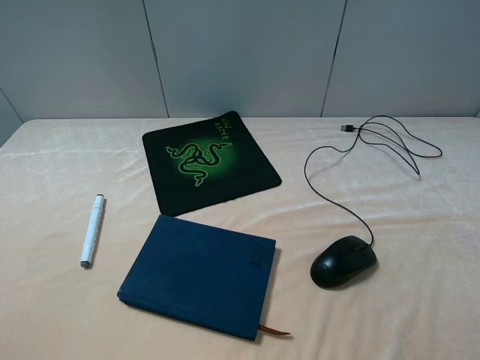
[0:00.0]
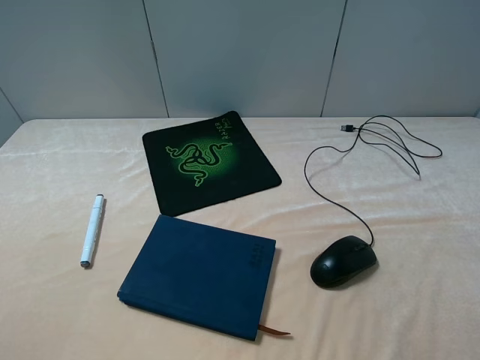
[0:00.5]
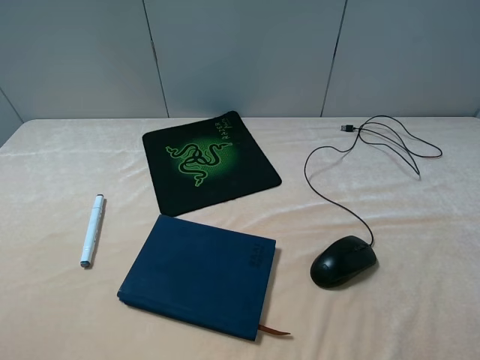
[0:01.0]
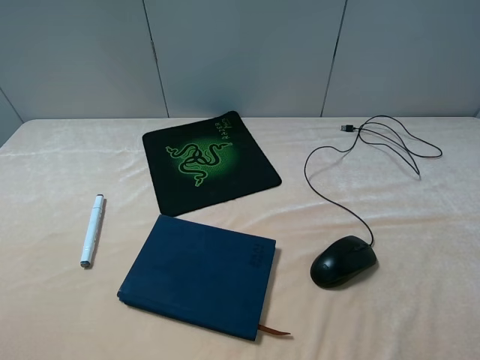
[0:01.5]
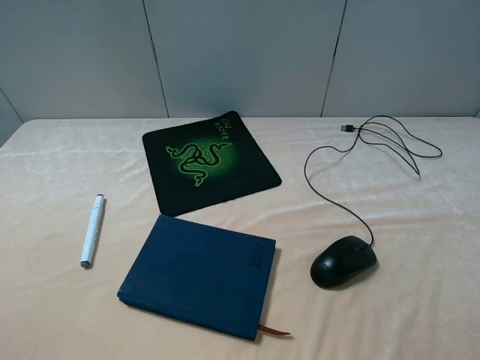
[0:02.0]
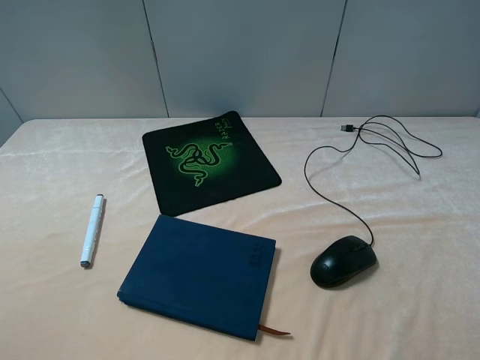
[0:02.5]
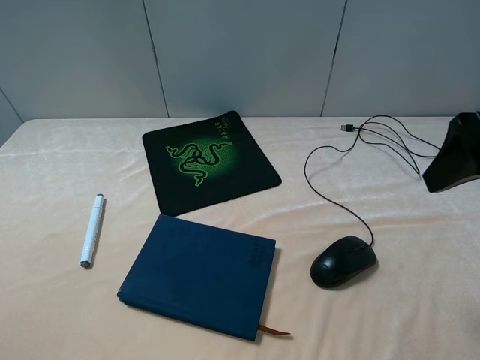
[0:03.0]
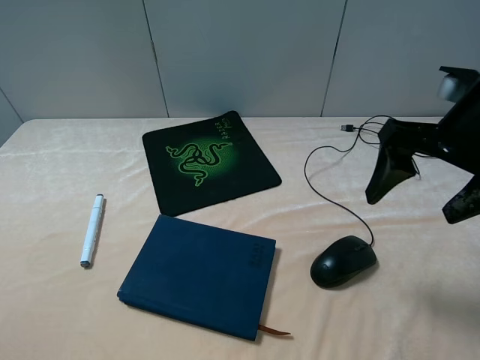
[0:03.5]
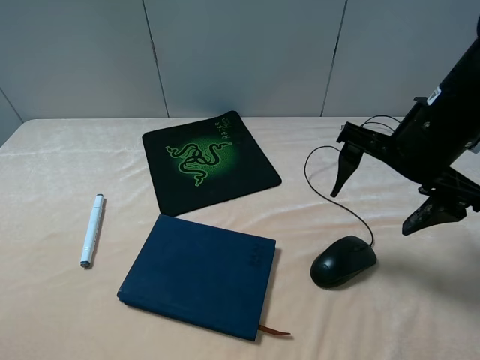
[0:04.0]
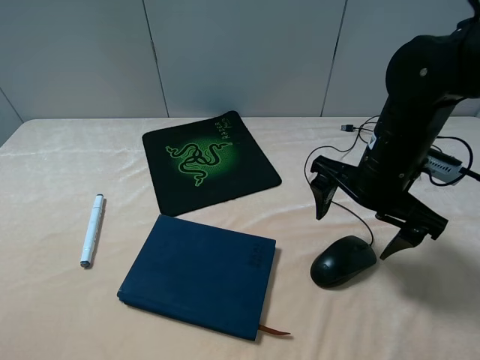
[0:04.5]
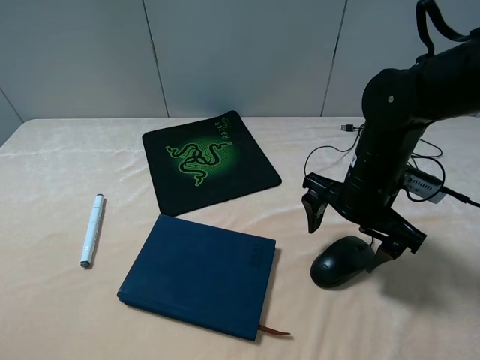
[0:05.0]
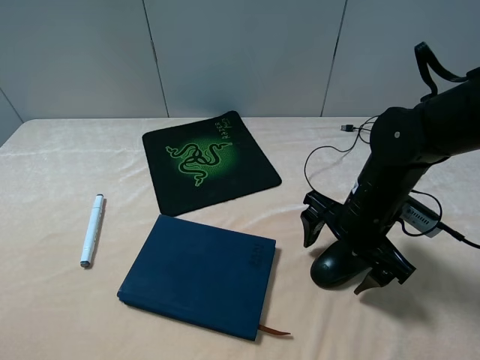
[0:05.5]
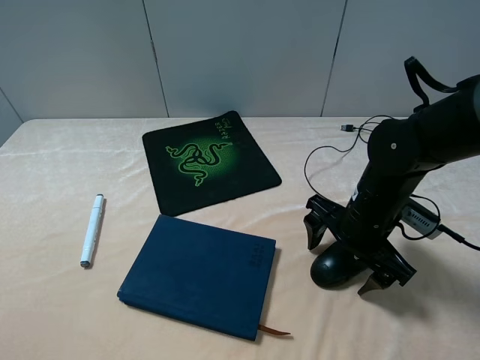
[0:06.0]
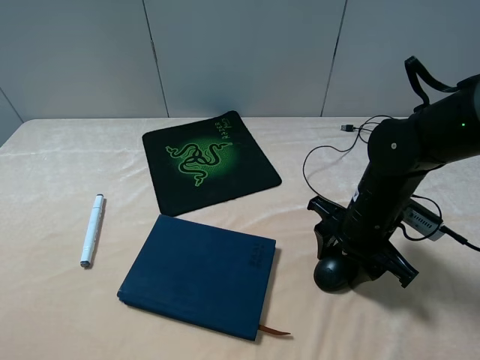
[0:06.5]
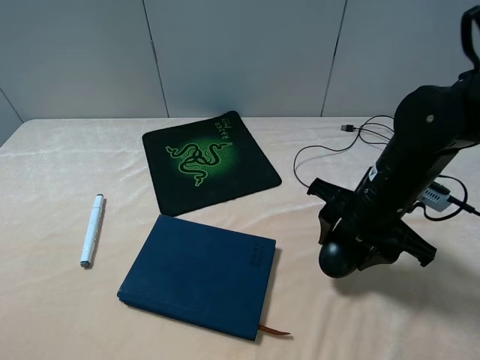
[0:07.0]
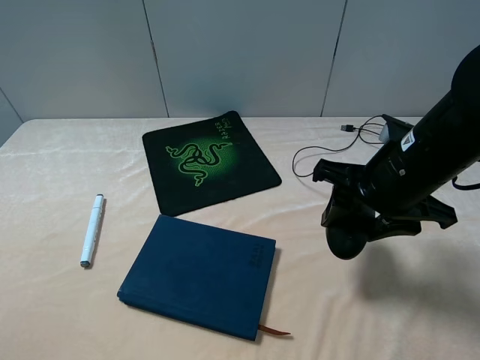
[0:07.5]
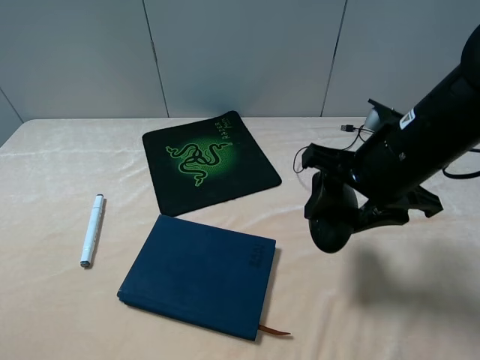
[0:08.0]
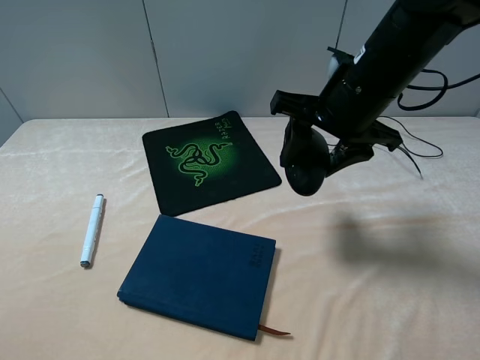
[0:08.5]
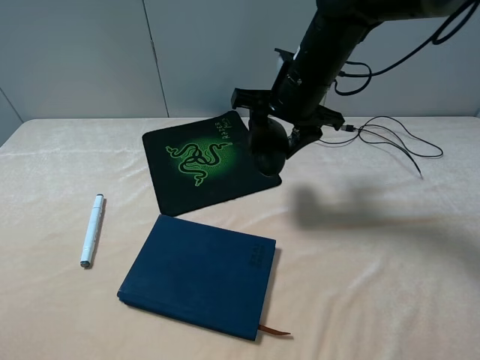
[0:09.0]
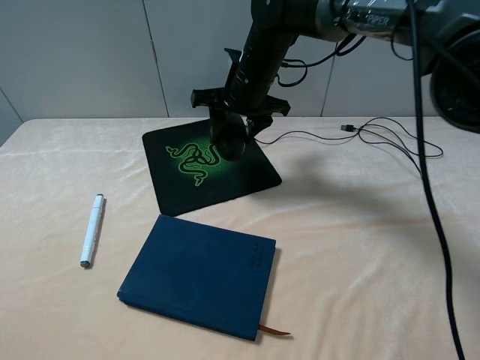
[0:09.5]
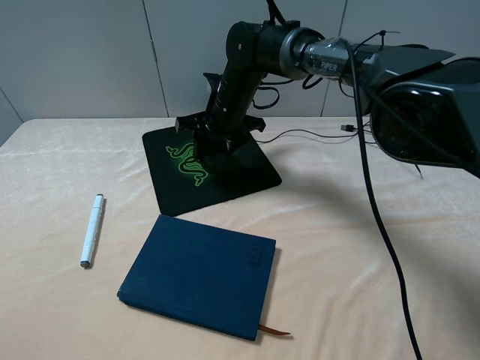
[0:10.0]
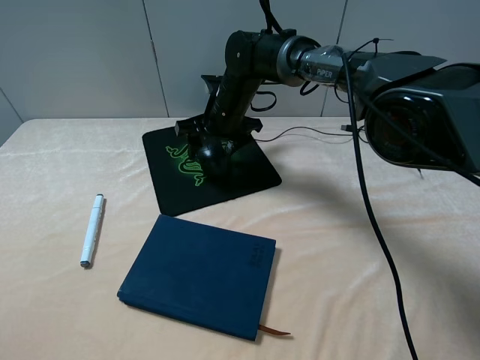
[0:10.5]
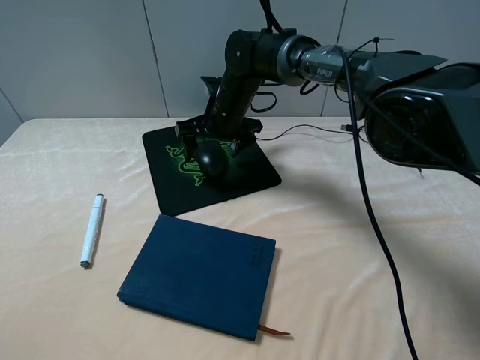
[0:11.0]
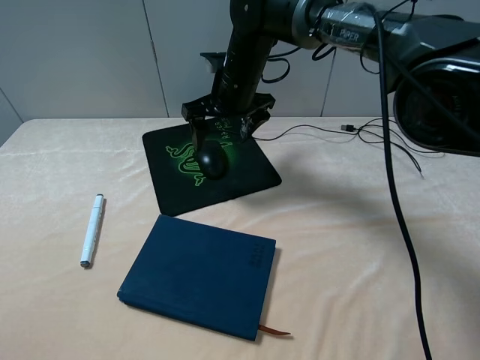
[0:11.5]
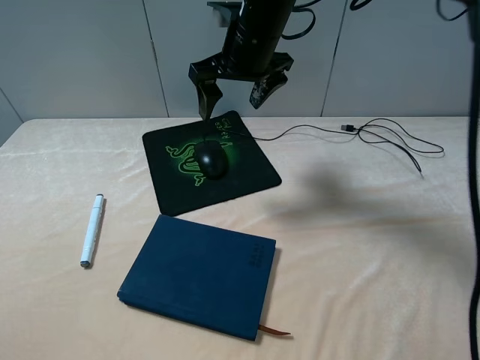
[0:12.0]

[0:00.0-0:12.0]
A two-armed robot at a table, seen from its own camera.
Step, 0.0 to 6.5 s: Grasp the mouse with the right gripper.
Step, 7.0 to 10.5 s: Place the mouse on the mouse pad with the right gripper.
2.0 to 4.0 s: The right gripper heads forward, to the left and downward, covering about 25 cm.
4.0 to 6.0 s: The right gripper travels downward by some 10 cm.
6.0 to 8.0 s: The right gripper shifts approximately 10 cm upward, and closes its fingers.
8.0 to 10.0 s: The right gripper heads forward and to the left, covering roughly 30 cm.
10.0 to 12.0 s: The right gripper shifts about 15 cm upward, and opens its fingers.

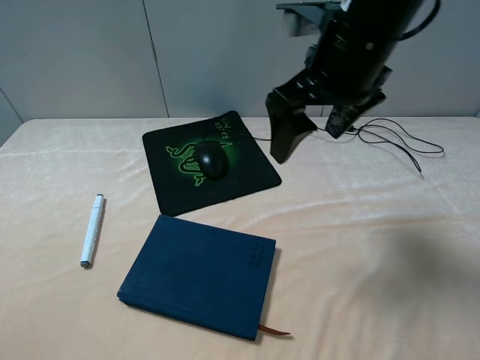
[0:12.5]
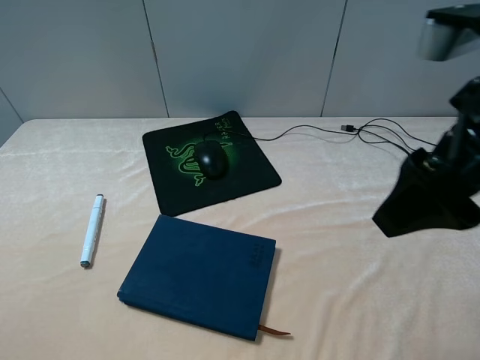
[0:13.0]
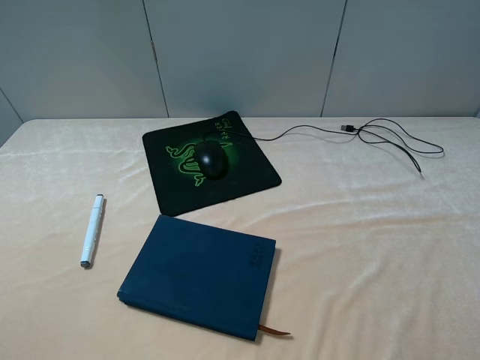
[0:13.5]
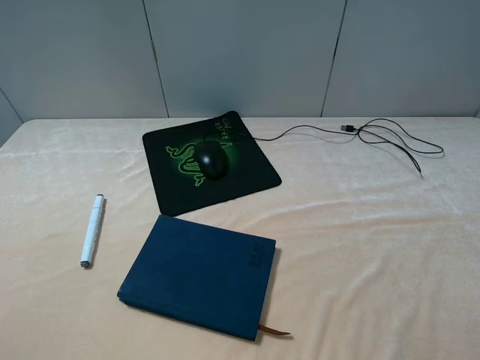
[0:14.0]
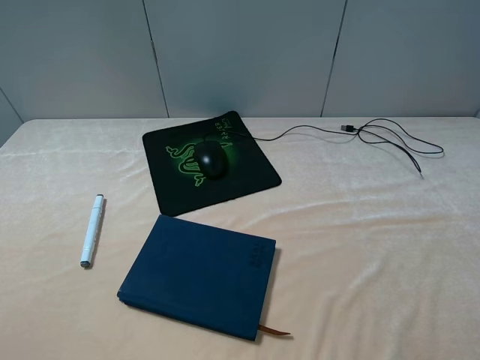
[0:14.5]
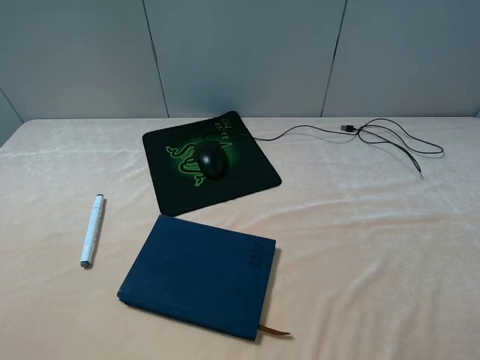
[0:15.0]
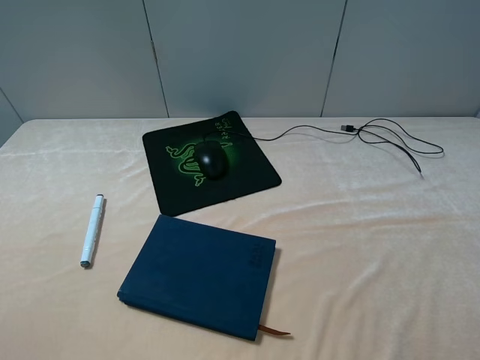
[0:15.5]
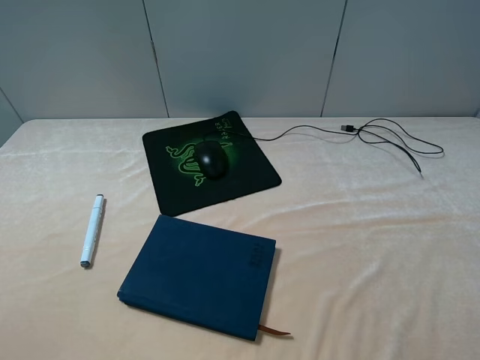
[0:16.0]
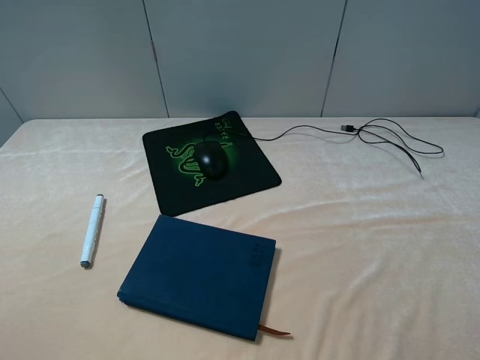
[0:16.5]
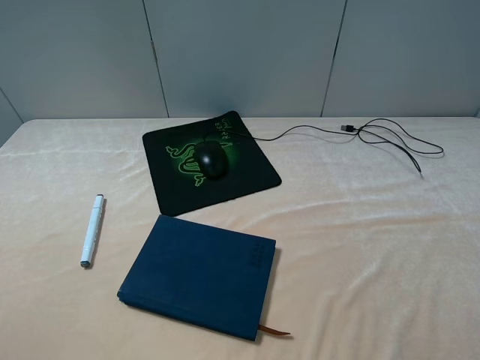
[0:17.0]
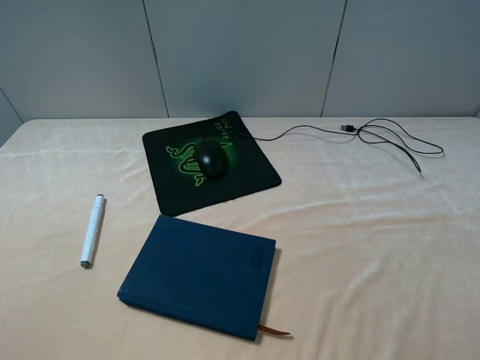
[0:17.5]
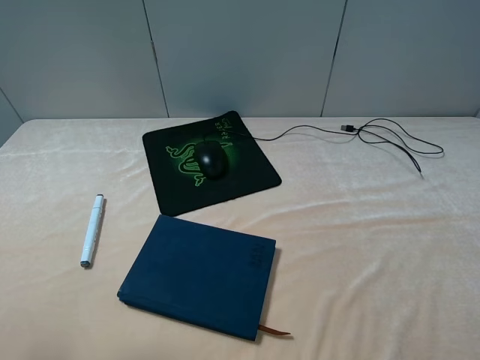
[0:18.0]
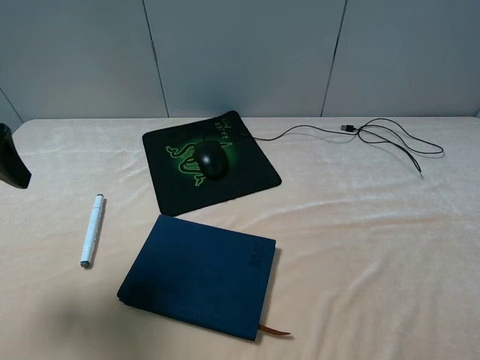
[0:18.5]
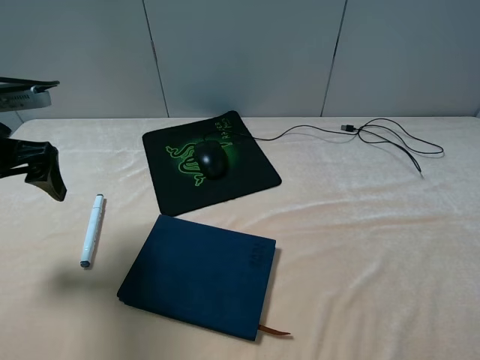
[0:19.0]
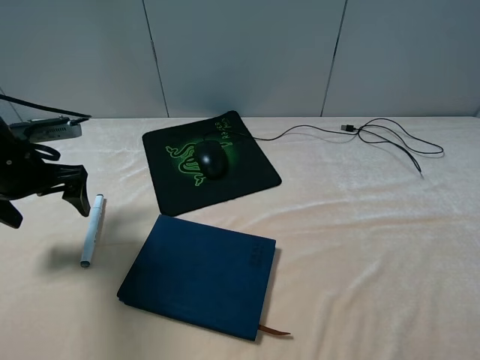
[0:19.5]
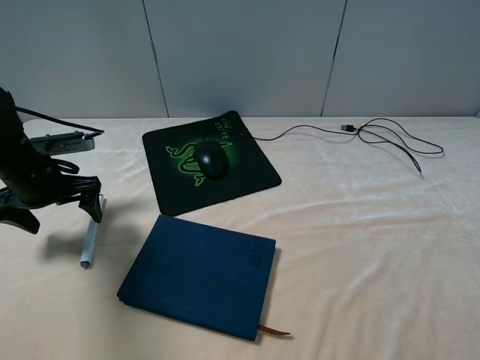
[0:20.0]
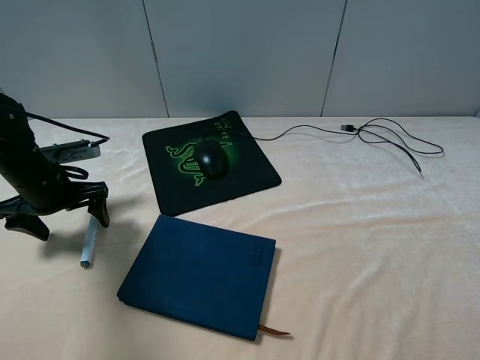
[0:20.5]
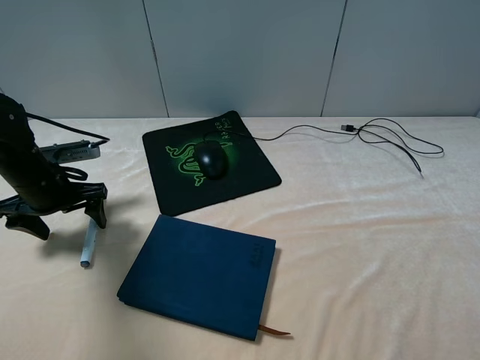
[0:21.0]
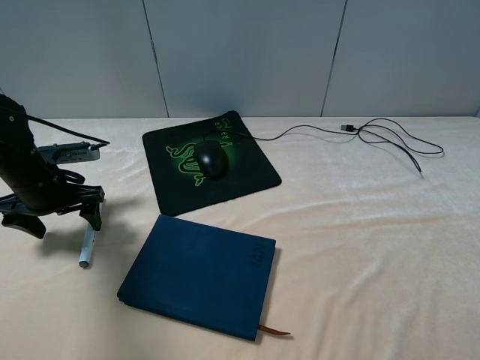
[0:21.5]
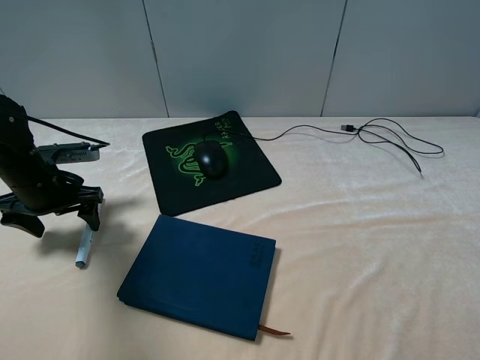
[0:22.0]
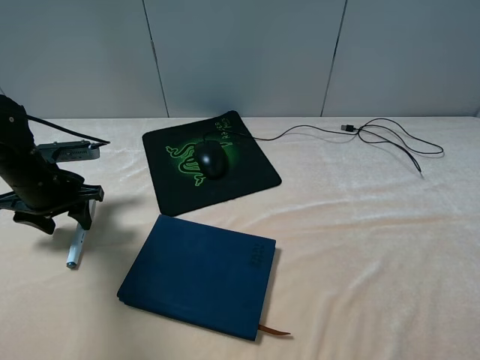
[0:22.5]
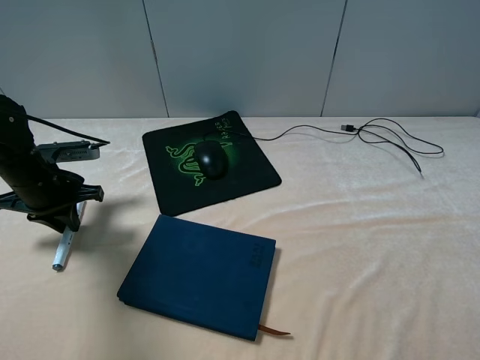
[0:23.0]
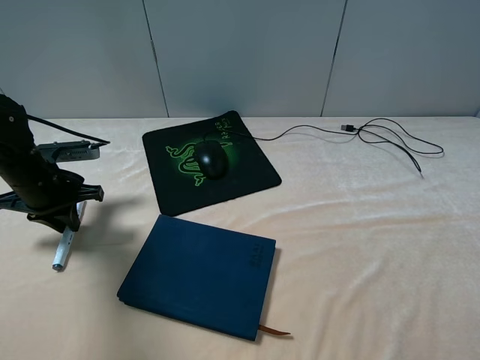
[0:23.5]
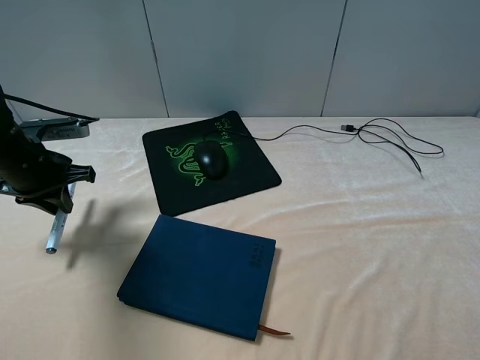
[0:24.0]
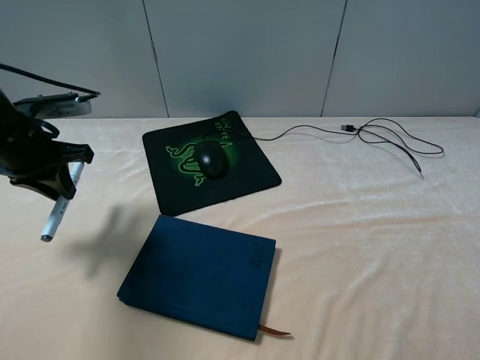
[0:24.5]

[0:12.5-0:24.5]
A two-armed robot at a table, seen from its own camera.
Step, 12.5 to 23.0 s: Grasp the marker with the left gripper.
12.5 to 14.5 s: The right gripper goes approximately 30 cm backward and to the right.
16.5 to 18.5 s: The left gripper shifts about 20 cm forward.
18.5 to 20.5 s: The left gripper moves downward and forward, some 20 cm.
20.5 to 22.5 s: The left gripper closes its fingers.
22.5 to 24.5 s: The left gripper travels upward by roughly 10 cm, and closes up.

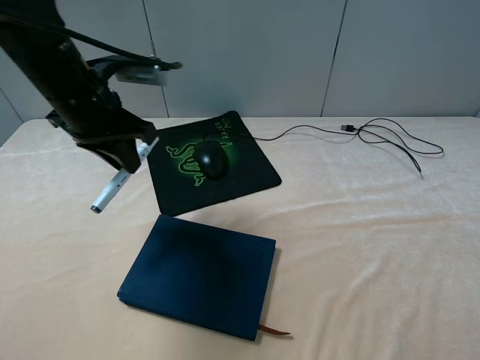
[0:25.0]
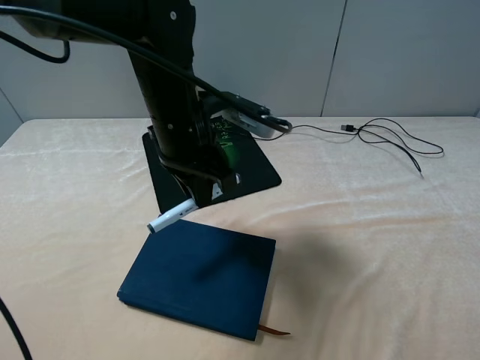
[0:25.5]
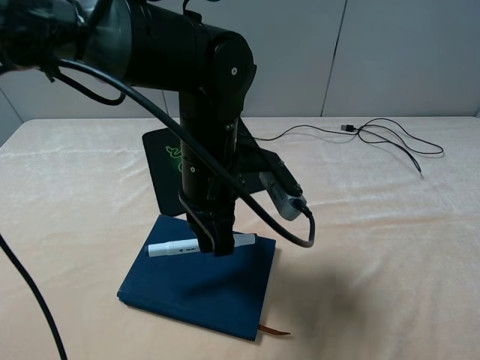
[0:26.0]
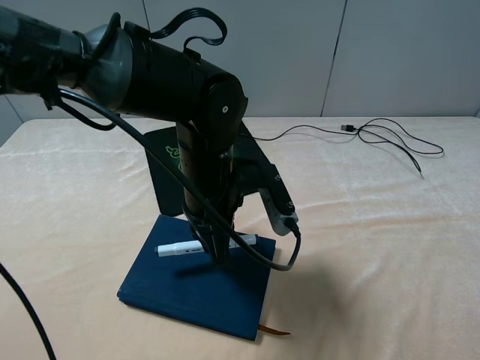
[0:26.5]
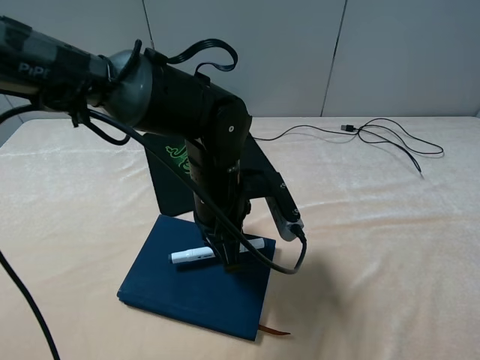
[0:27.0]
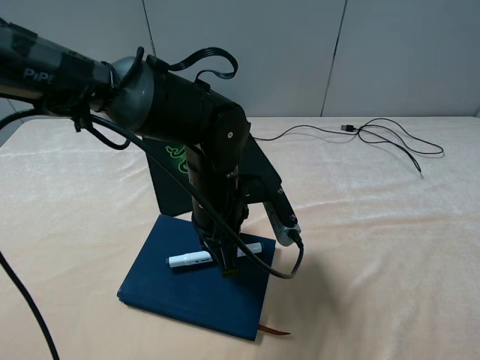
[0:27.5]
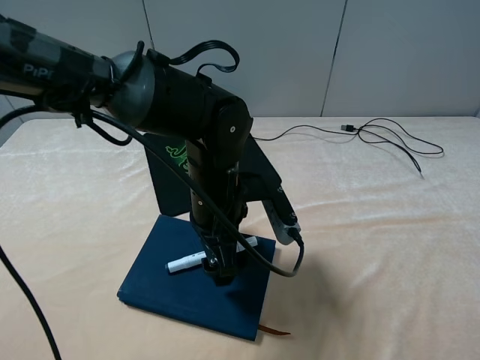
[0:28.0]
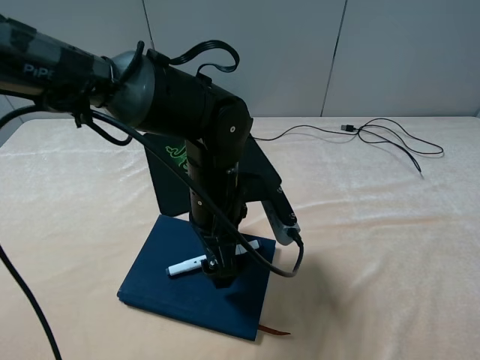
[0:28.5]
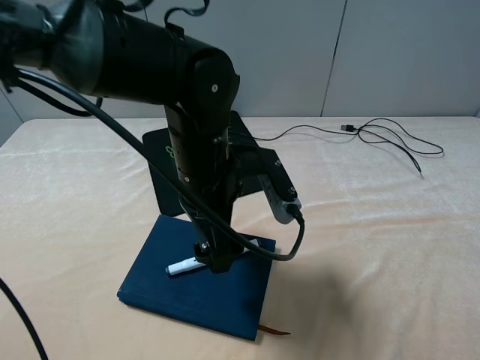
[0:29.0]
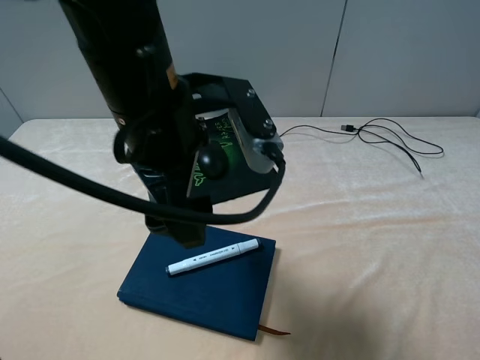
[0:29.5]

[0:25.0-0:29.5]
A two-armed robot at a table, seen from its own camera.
Step, 25.0 to 28.0 s: Place the marker on the notebook with the left gripper.
25.0 to 27.0 s: The left gripper travels to the right and downward by about 20 cm.
27.0 to 29.5 s: The left gripper shifts about 15 cm upward, and opens.
